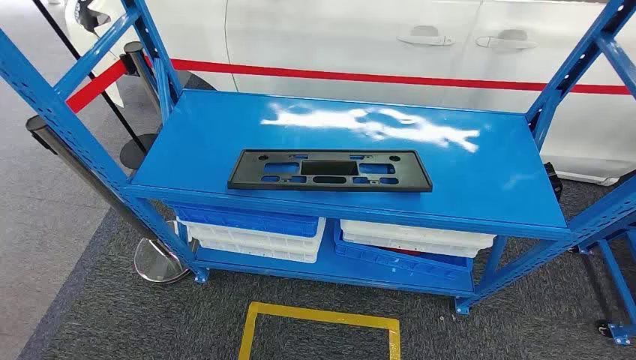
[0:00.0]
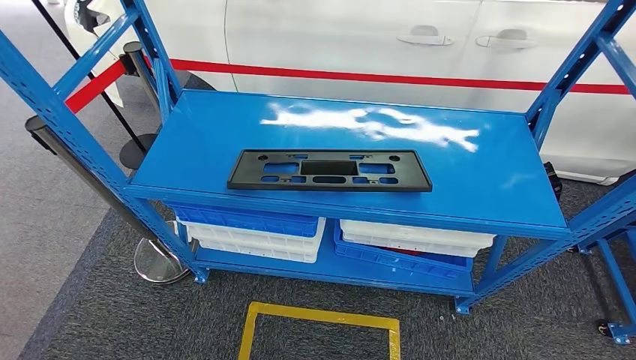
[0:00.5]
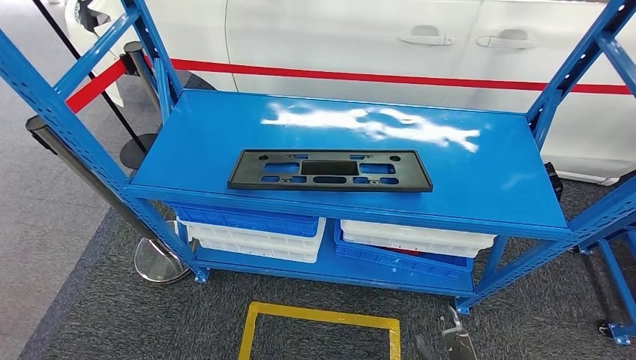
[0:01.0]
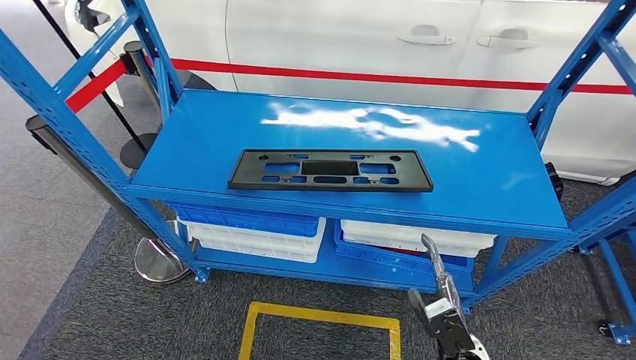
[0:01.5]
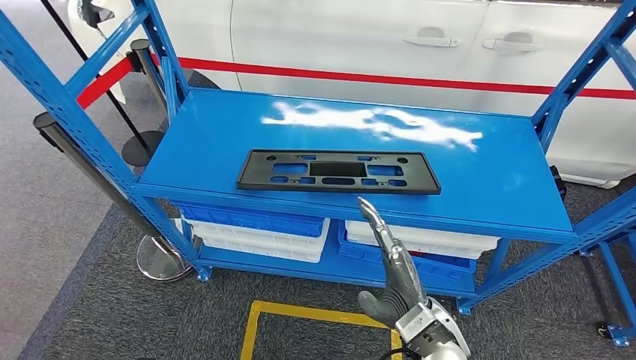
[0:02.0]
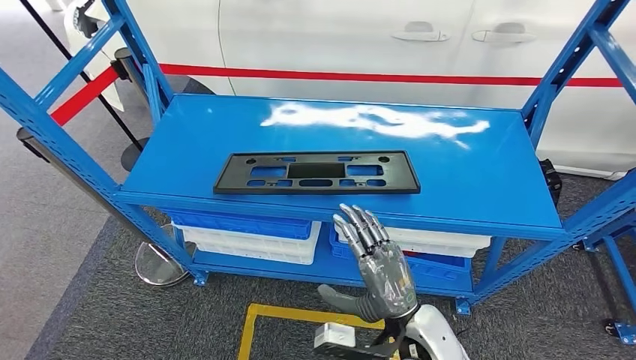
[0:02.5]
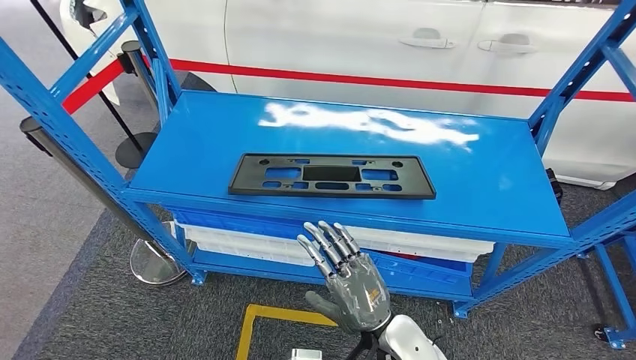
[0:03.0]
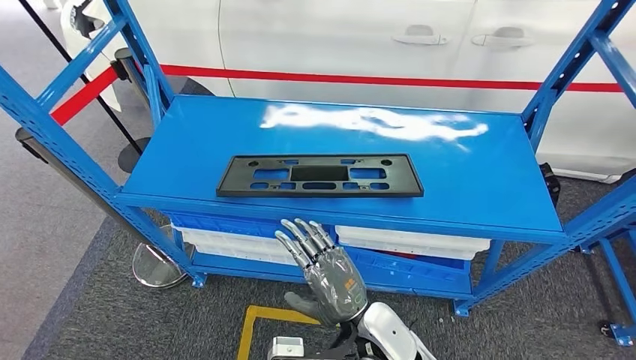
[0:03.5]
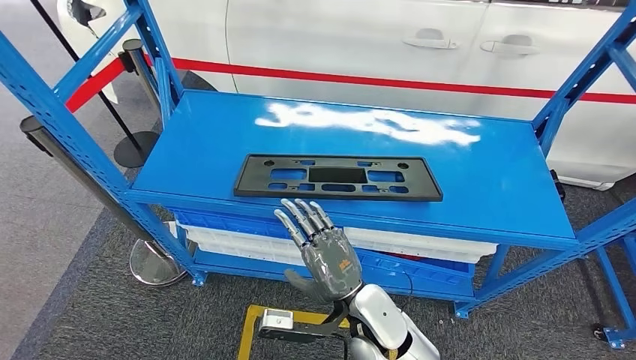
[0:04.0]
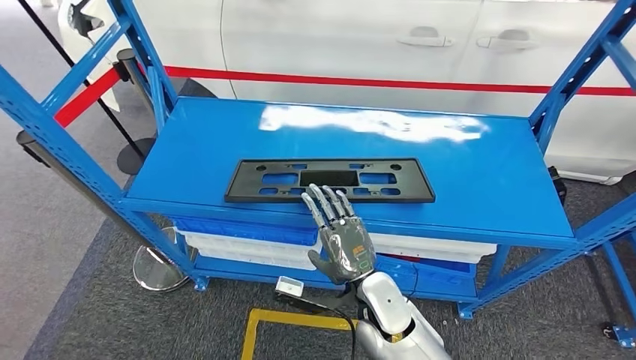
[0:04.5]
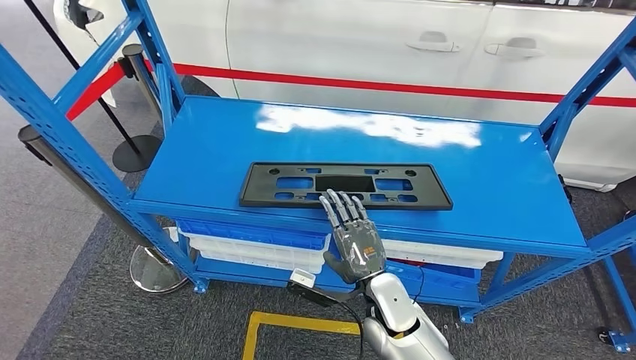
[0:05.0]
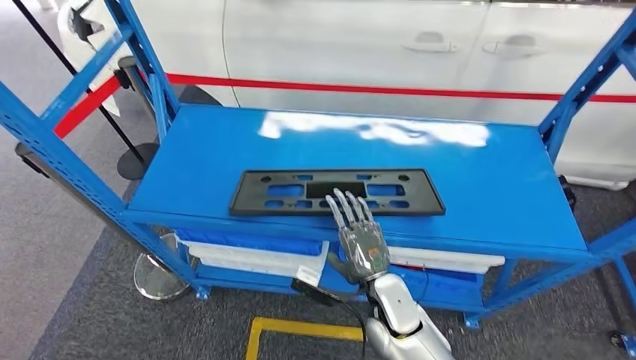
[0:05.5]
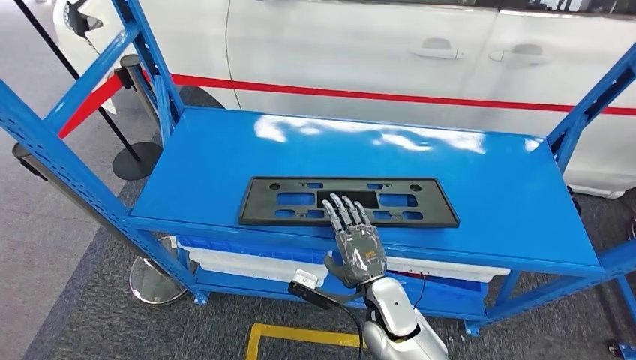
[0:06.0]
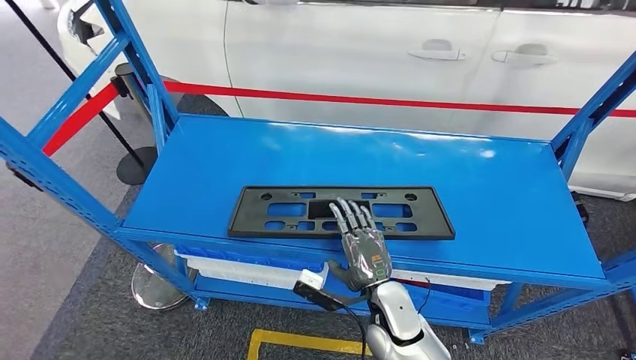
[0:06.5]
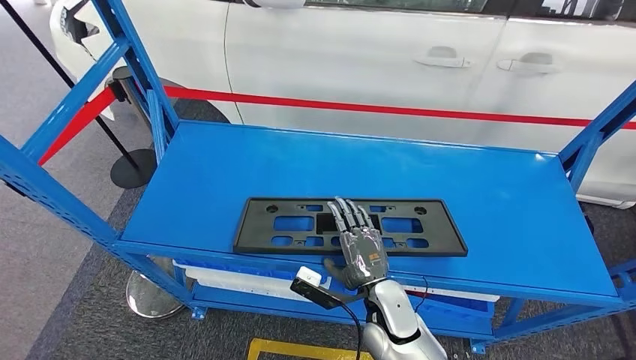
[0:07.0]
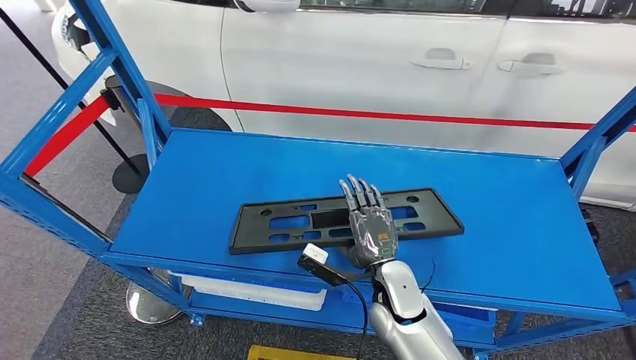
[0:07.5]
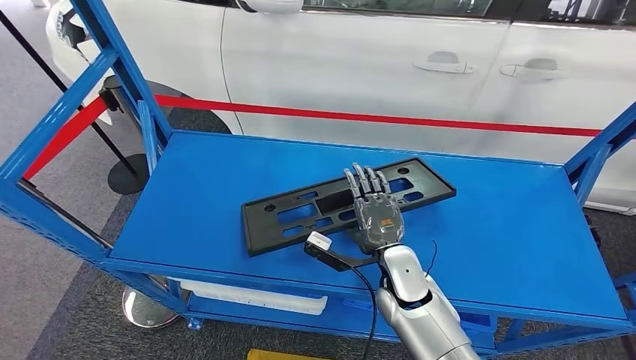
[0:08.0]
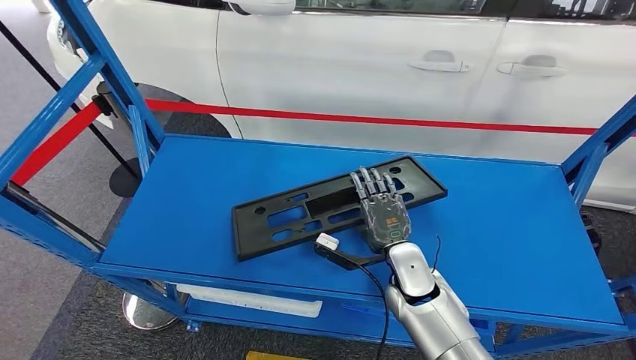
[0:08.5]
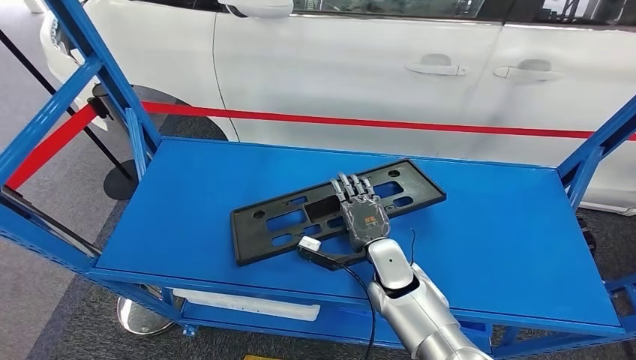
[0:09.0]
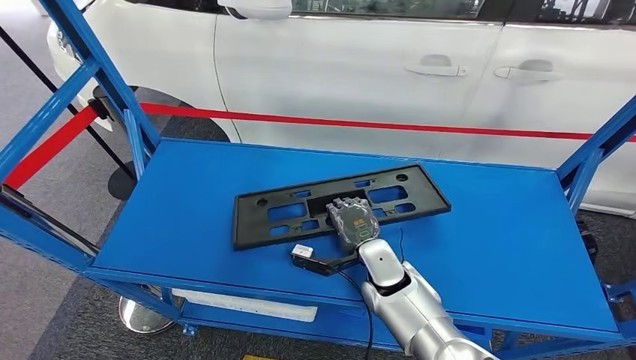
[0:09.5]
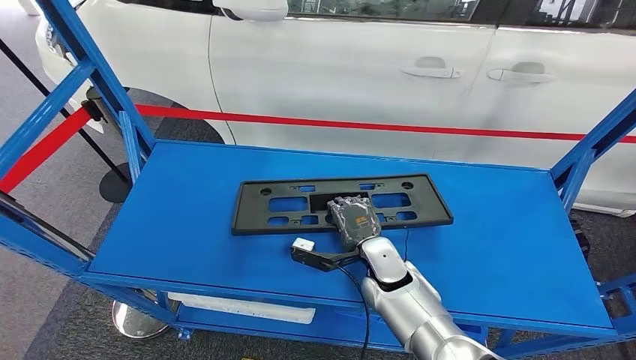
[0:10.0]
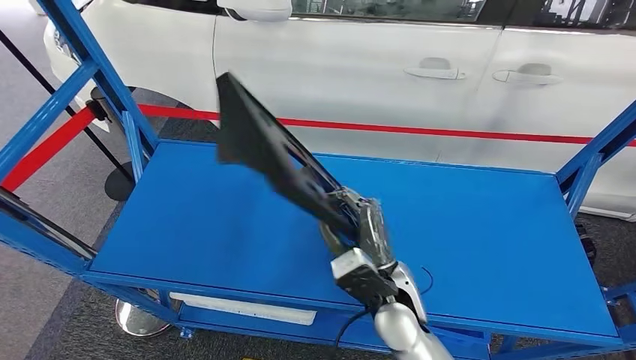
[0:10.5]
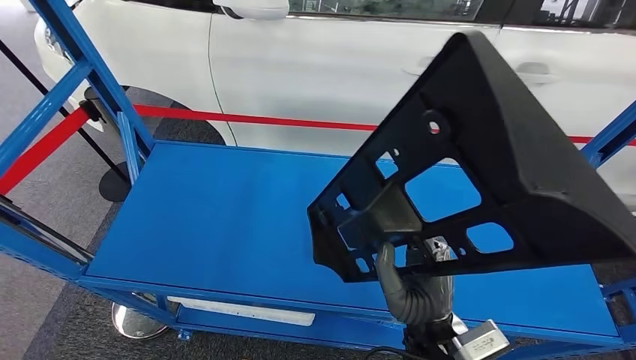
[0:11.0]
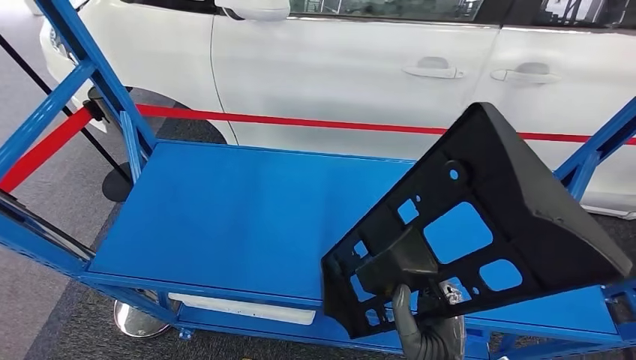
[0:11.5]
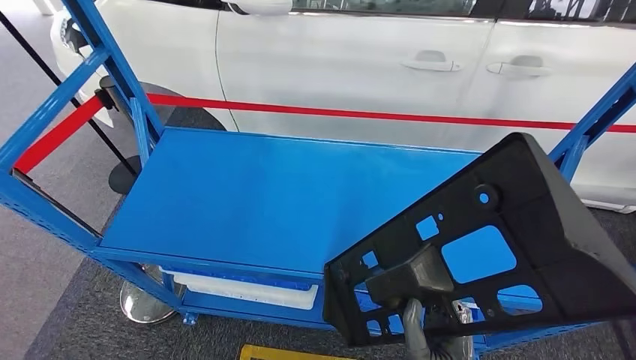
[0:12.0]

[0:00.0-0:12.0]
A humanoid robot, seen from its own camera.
Step, 0:00.0 to 0:11.0: Pick up the large material from the shelf.

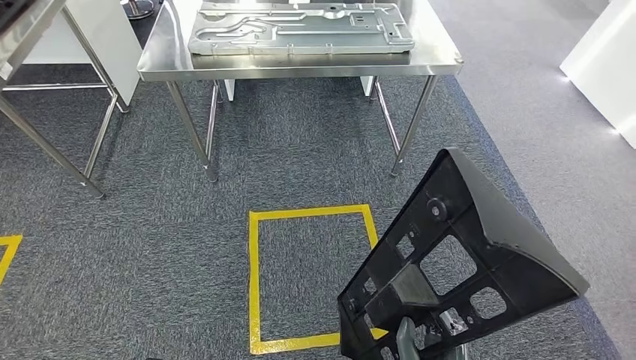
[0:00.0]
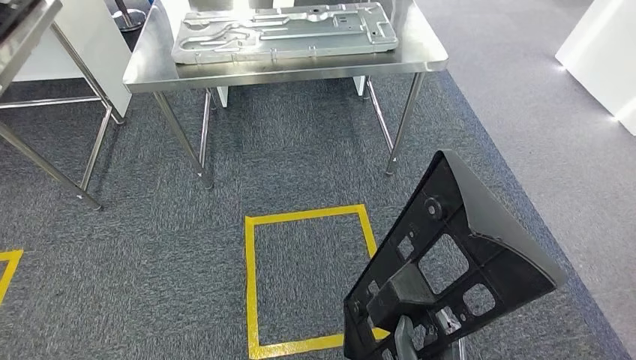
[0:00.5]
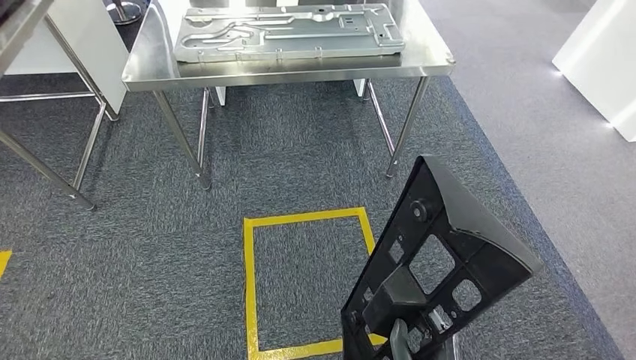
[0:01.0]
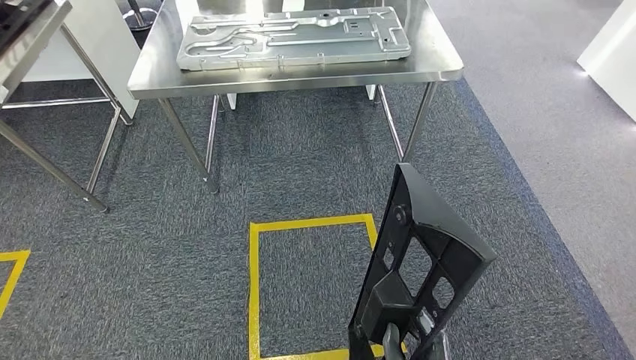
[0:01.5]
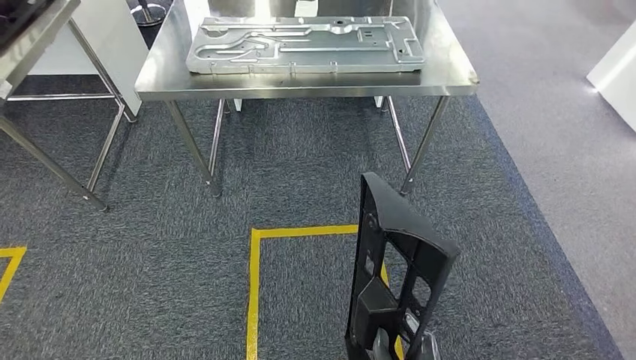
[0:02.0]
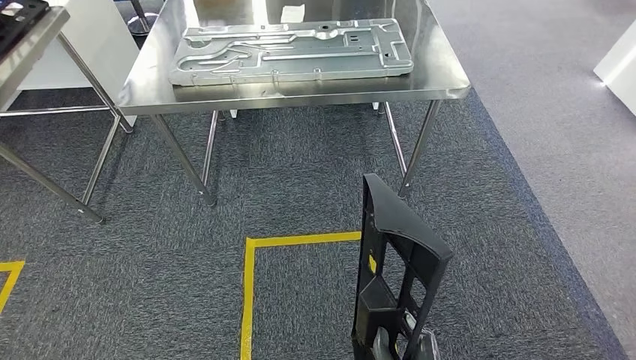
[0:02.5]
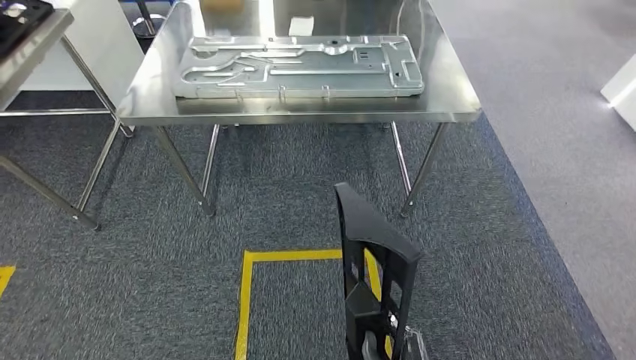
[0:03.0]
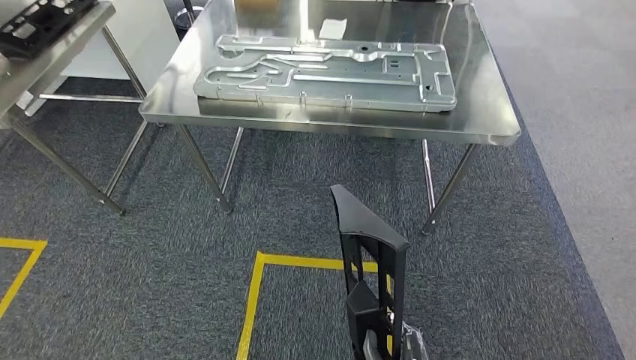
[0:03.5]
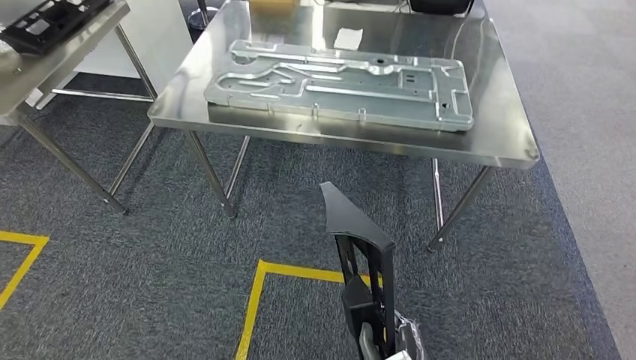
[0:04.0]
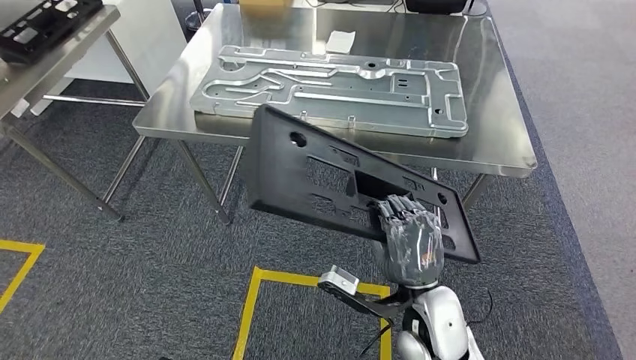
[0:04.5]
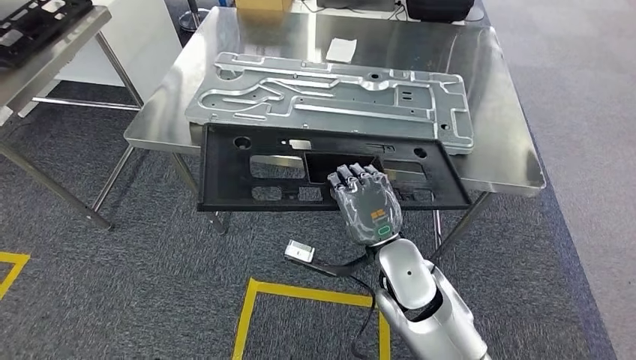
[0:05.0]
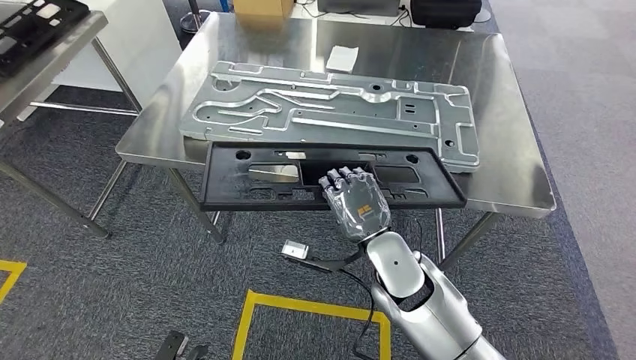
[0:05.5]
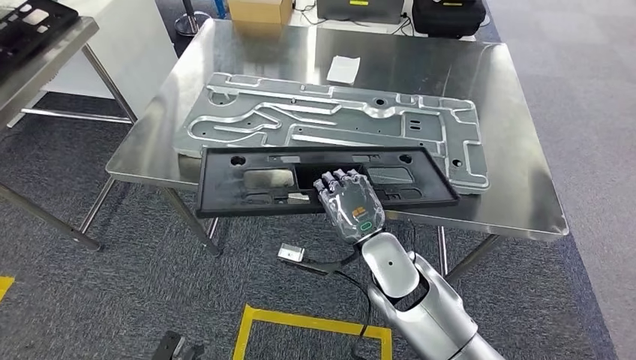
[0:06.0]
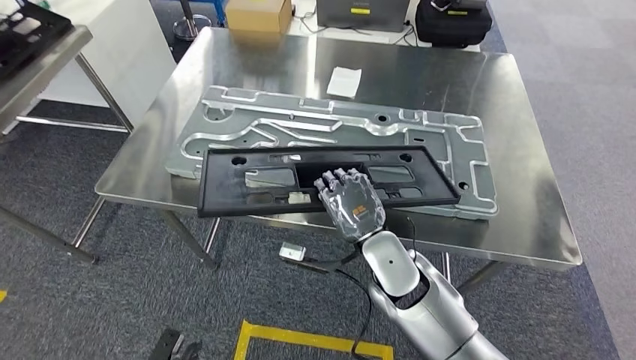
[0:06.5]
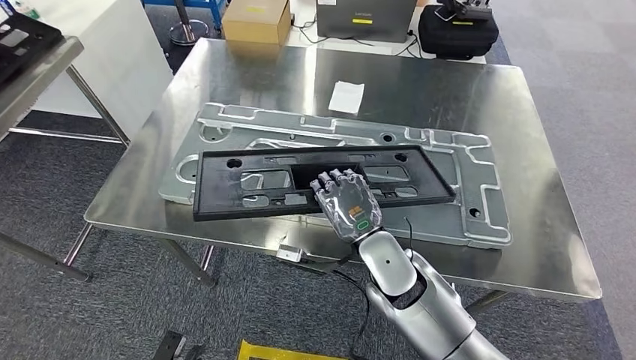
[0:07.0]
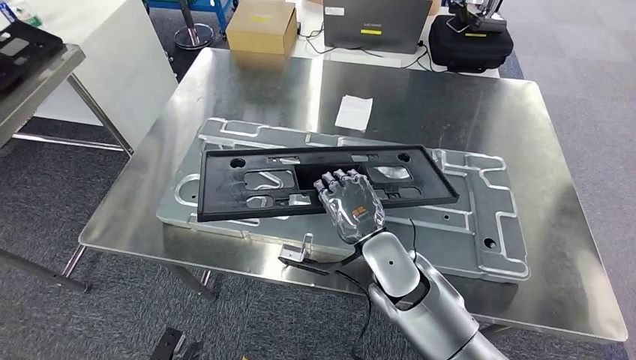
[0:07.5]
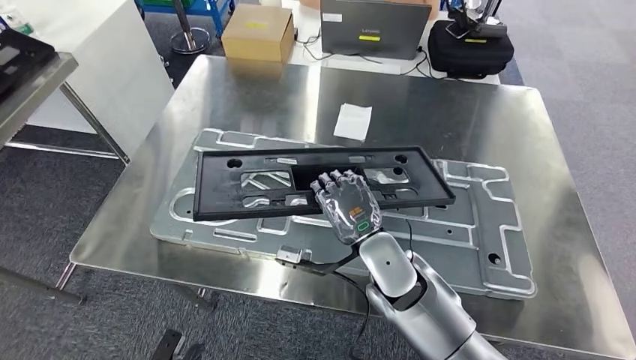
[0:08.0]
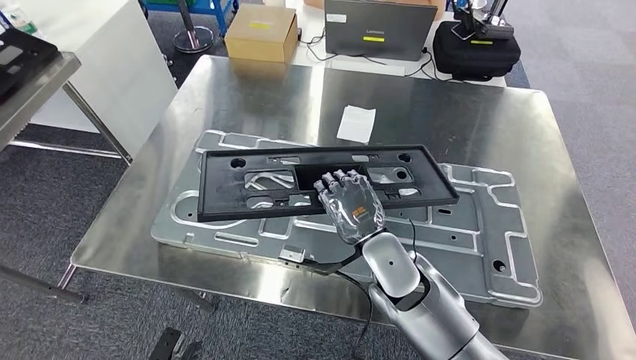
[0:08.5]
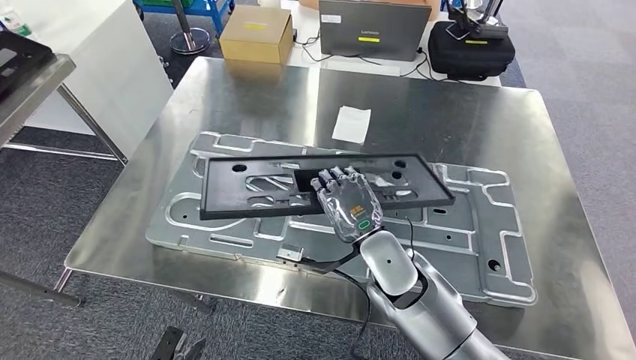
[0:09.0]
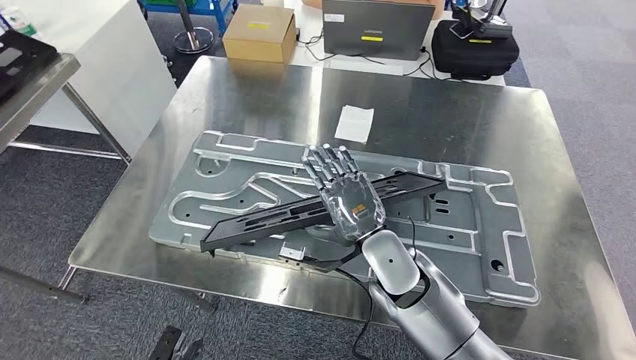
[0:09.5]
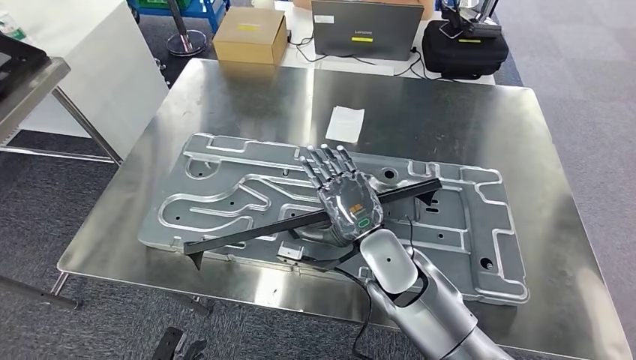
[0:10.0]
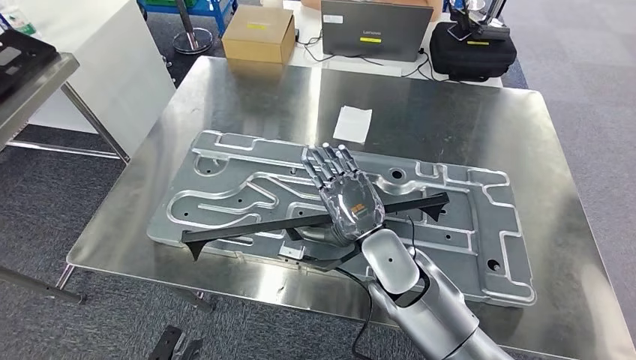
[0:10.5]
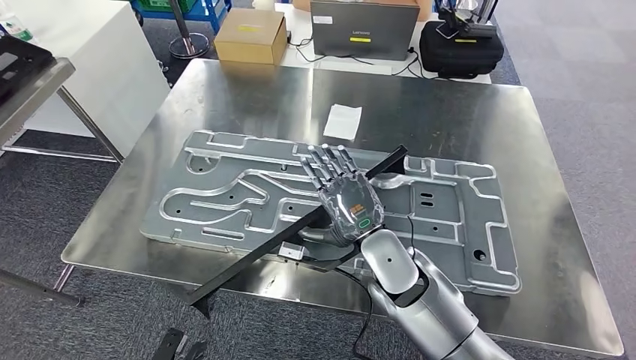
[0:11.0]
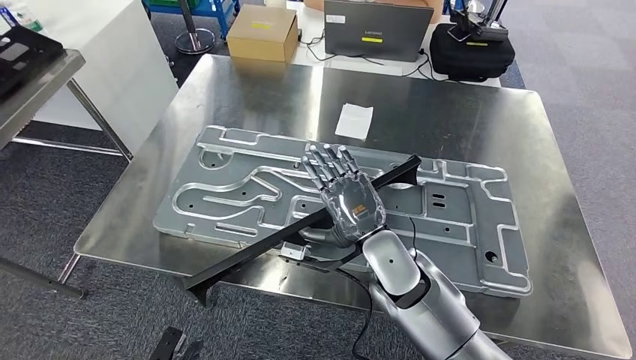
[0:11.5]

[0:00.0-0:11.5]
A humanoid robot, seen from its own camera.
Step, 0:00.0 to 0:02.0: Move the large material to the workbench.
